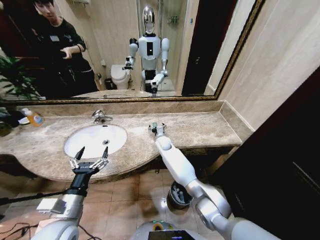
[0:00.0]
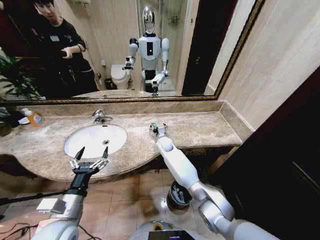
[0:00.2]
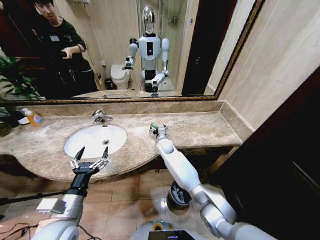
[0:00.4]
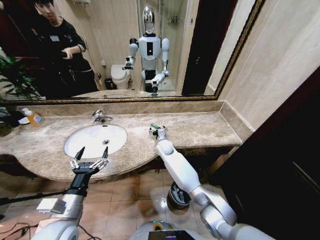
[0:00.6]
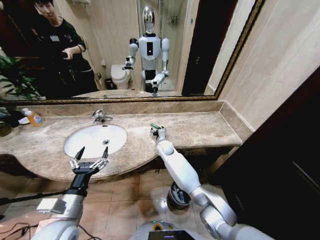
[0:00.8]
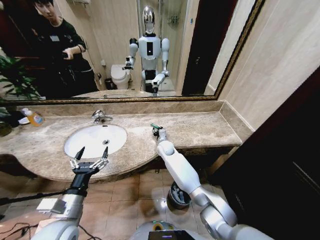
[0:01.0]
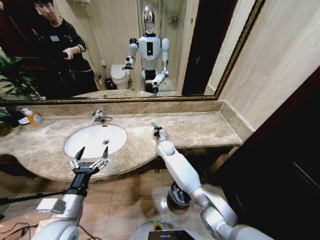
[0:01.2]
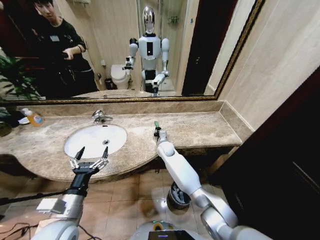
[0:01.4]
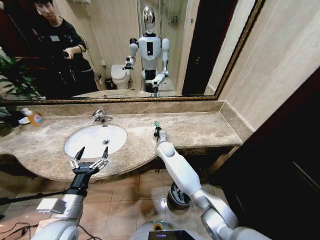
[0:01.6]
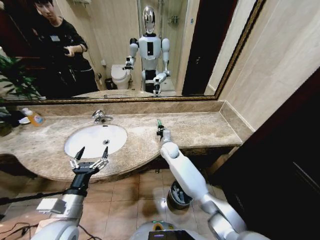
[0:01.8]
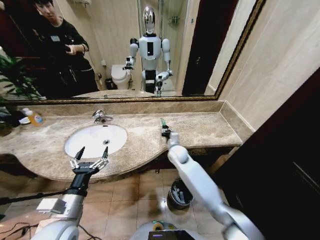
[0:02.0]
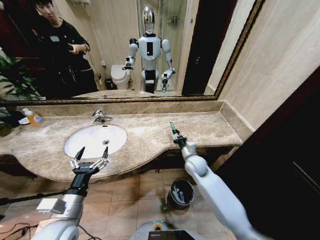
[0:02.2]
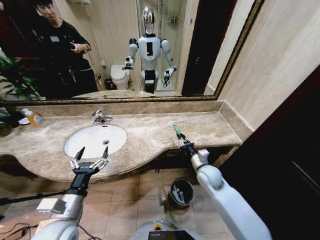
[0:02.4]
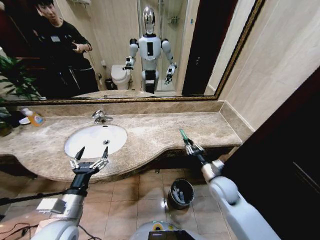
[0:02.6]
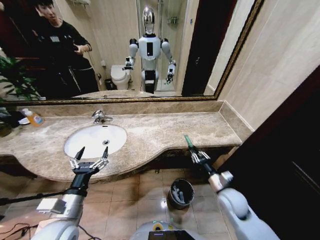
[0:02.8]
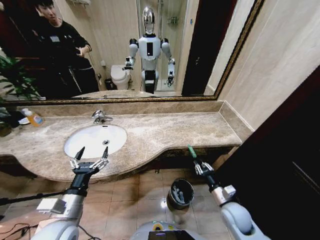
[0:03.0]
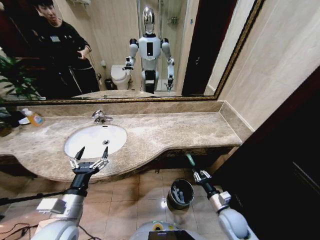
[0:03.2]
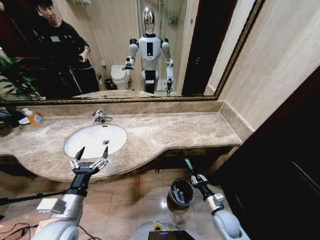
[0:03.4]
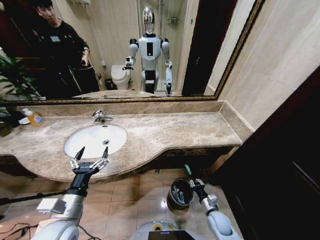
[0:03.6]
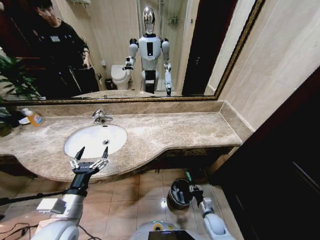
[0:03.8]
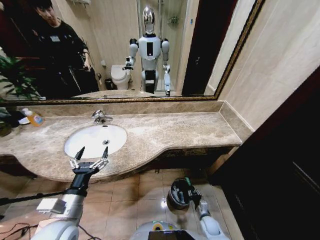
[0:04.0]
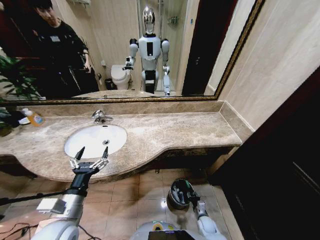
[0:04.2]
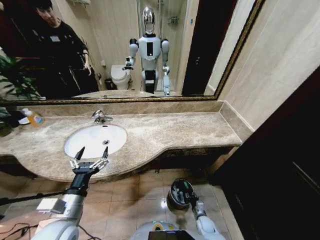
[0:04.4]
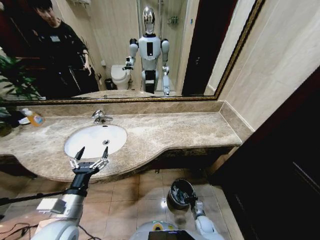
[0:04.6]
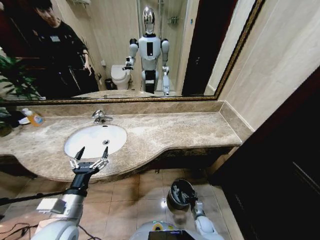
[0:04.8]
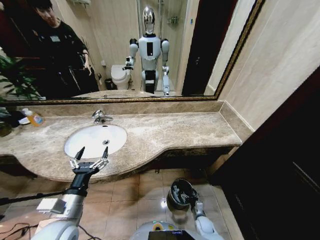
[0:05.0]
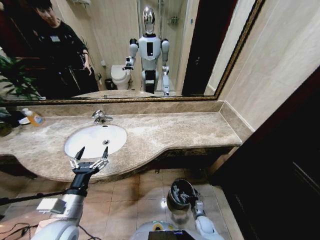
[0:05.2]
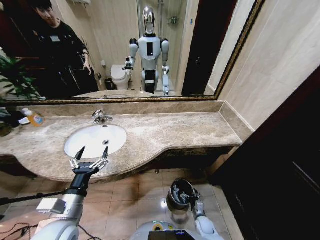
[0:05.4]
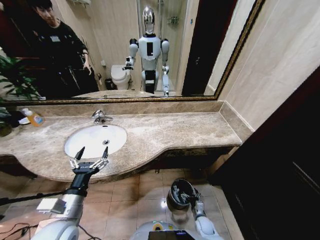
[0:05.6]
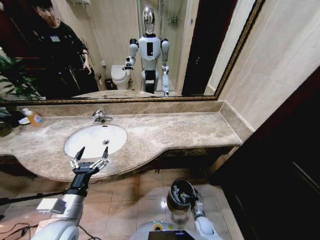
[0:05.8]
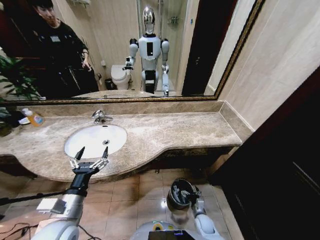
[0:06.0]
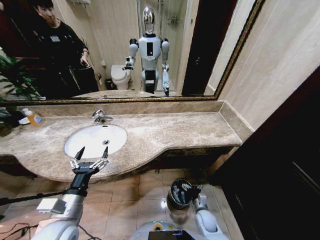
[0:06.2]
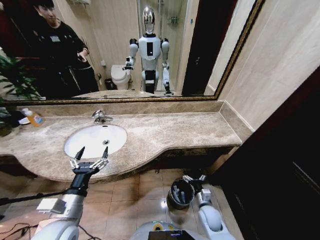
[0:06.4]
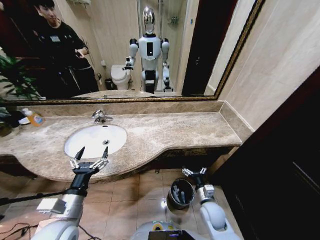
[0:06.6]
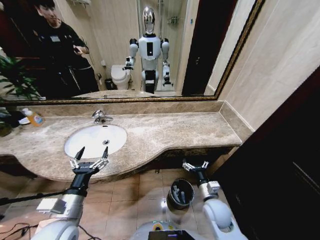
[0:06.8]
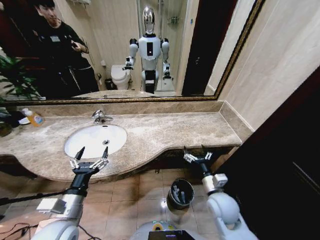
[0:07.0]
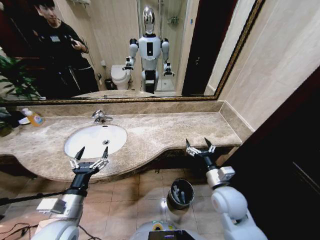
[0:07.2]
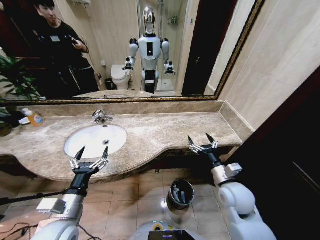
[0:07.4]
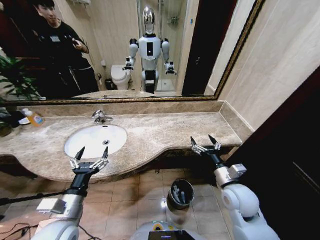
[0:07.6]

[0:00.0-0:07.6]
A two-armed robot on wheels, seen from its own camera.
Task of the whole recording: Pick up the trash from the sink and place it in the trash bin.
0:00.0 to 0:01.6: The right gripper closes.
0:01.6 to 0:03.0: The right gripper moves backward and to the right, approximately 40 cm.
0:03.0 to 0:04.6: The right gripper heads downward, covering about 25 cm.
0:06.0 to 0:07.6: The right gripper goes approximately 35 cm upward.

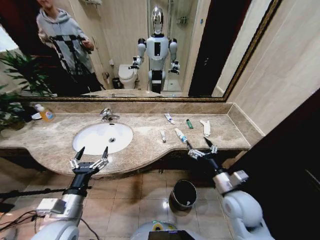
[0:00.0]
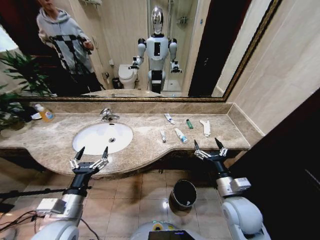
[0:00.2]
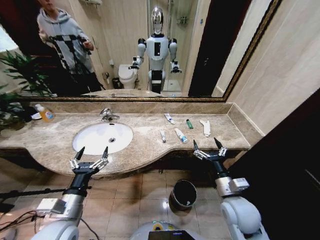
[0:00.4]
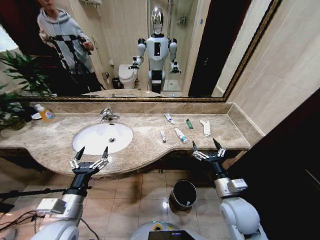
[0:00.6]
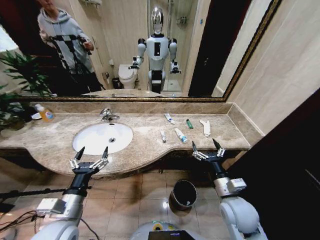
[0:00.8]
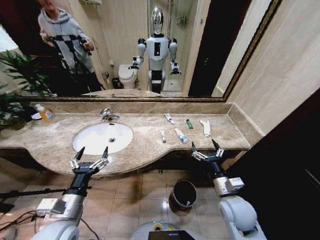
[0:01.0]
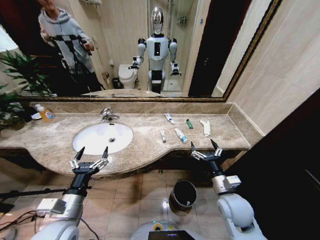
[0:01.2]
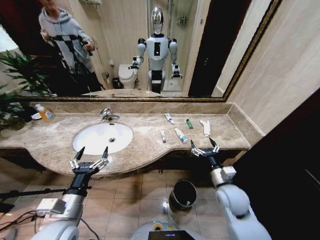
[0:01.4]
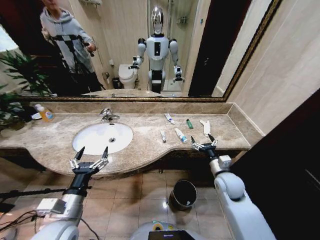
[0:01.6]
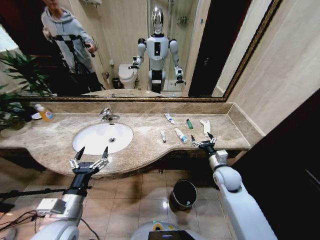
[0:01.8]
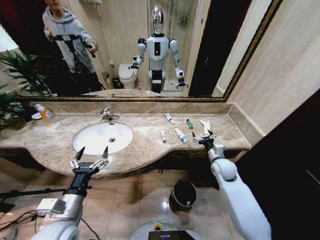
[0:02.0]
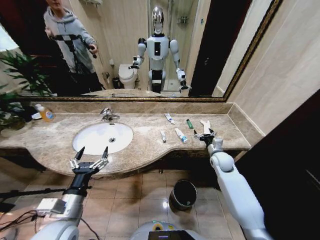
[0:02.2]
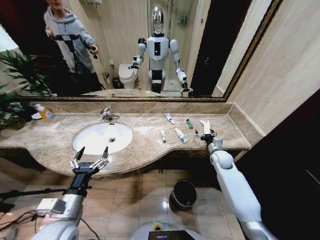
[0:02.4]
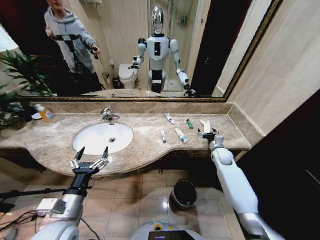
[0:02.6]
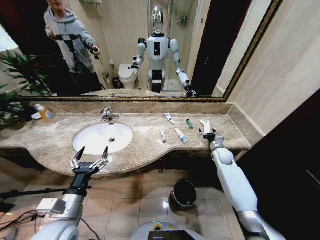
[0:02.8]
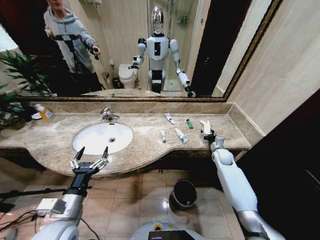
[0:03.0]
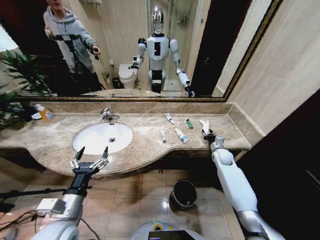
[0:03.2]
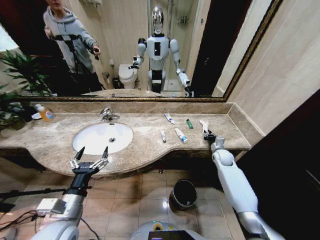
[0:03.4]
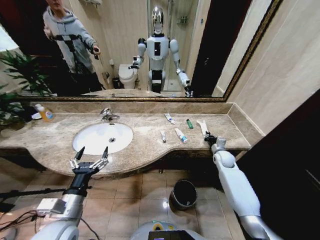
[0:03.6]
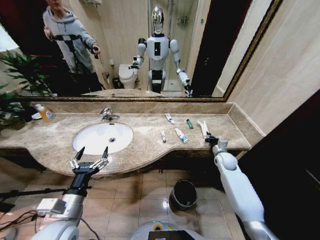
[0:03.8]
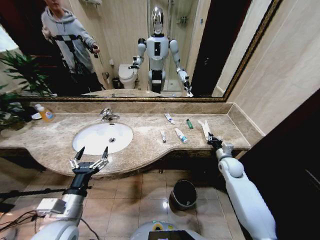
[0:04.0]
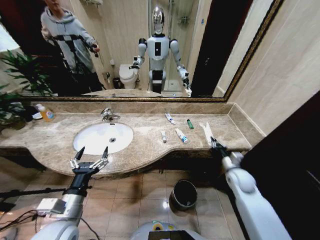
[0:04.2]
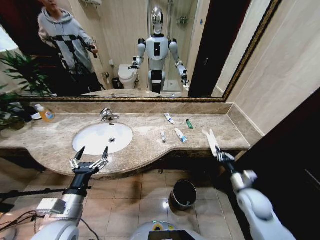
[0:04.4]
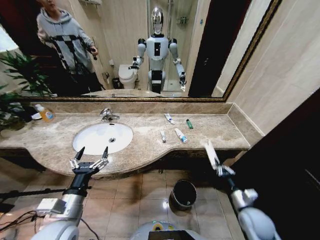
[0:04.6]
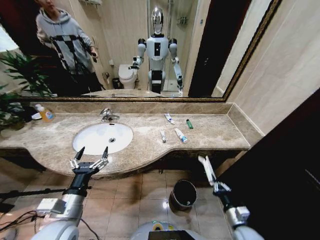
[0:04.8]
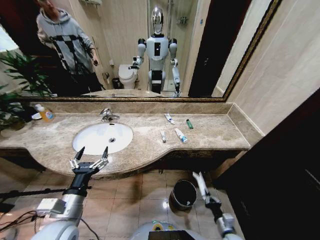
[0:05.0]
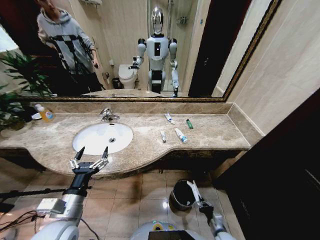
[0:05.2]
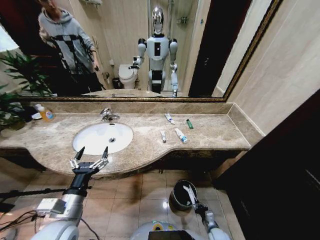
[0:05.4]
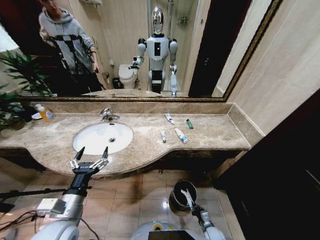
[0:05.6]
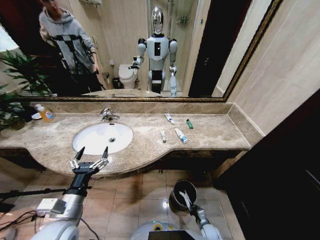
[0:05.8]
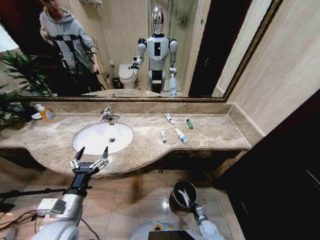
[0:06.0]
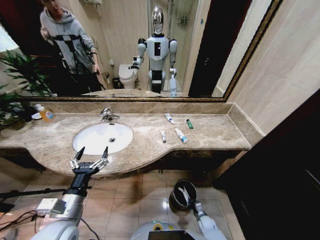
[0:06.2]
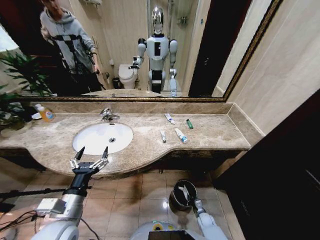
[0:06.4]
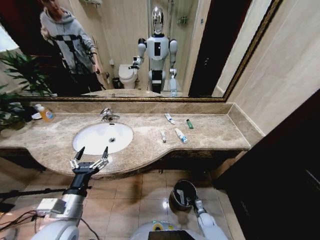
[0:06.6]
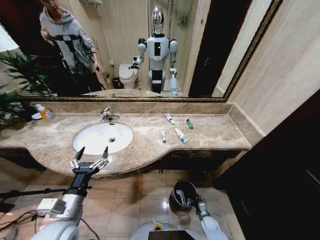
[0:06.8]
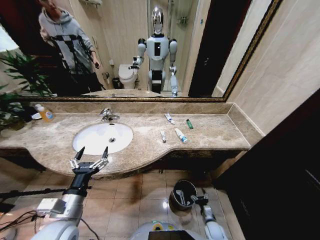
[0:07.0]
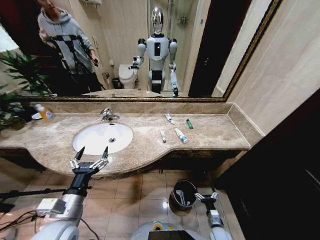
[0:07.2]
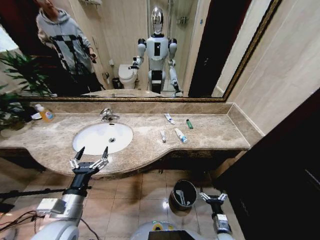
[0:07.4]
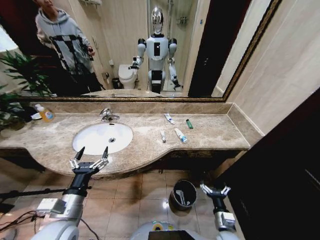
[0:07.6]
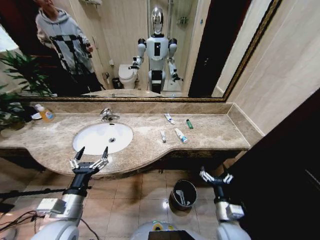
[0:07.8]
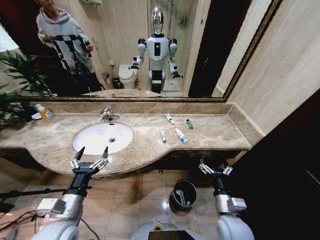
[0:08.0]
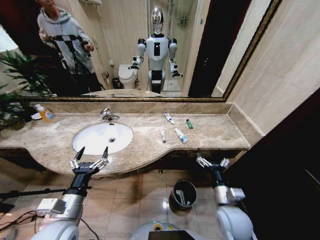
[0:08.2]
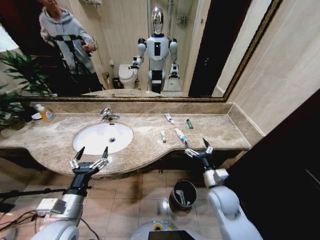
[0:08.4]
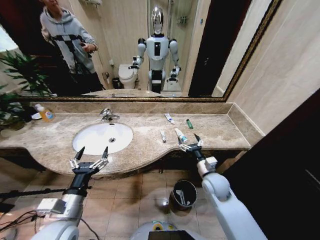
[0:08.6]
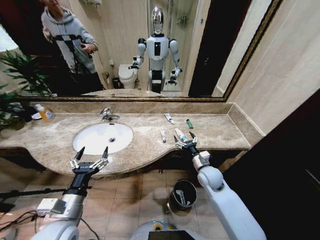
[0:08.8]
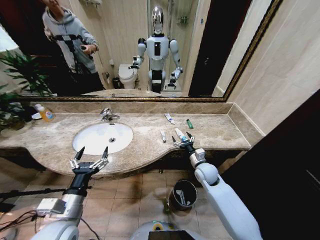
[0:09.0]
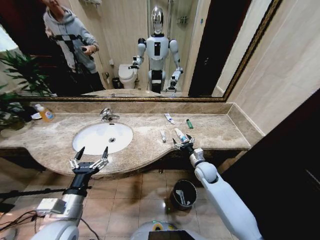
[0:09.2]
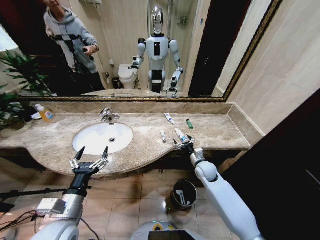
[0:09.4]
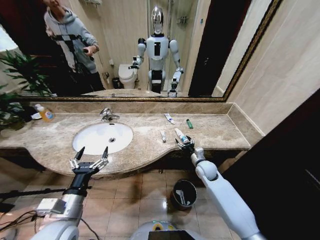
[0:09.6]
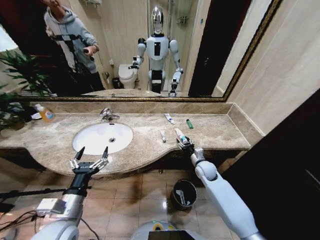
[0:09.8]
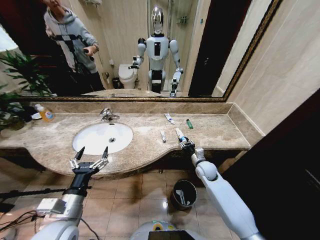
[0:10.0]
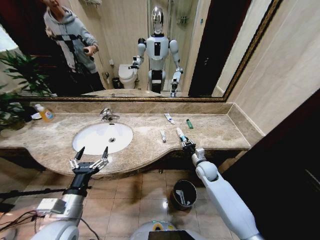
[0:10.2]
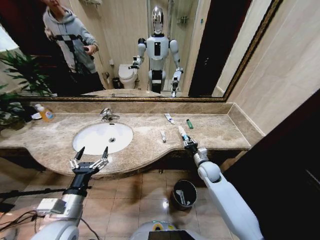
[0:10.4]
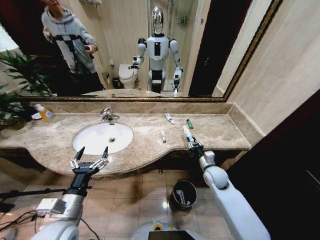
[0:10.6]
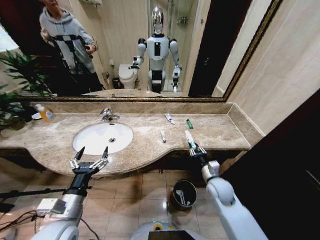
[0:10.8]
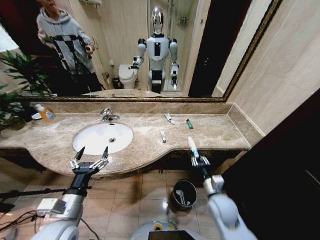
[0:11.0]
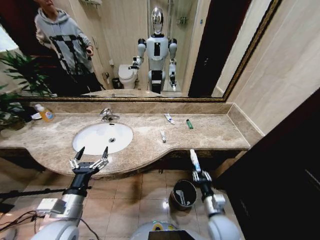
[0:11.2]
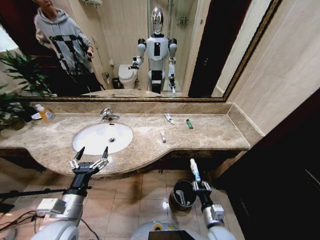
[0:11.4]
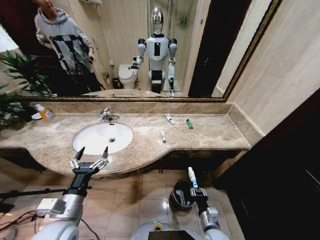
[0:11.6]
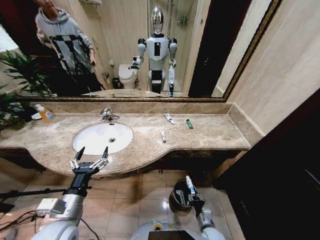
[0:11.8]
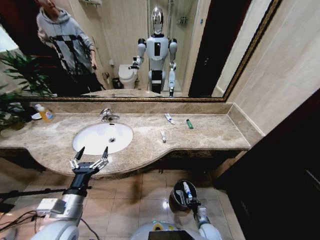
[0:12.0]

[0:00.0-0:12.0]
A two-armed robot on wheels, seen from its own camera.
Task of the whole recording: Pick up the trash from the sink and place it in the trash bin.
0:01.6 to 0:03.0: The right gripper is displaced forward and to the right by approximately 20 cm.
0:03.0 to 0:04.4: The right gripper goes roughly 25 cm backward, and closes its fingers.
0:04.4 to 0:06.0: The right gripper moves downward, roughly 35 cm.
0:06.0 to 0:07.6: The right gripper shifts about 20 cm upward, and opens its fingers.
0:07.6 to 0:09.0: The right gripper is displaced forward and upward by about 25 cm.
0:09.0 to 0:10.4: The right gripper closes up.
0:10.4 to 0:12.0: The right gripper heads backward and downward, covering about 30 cm.

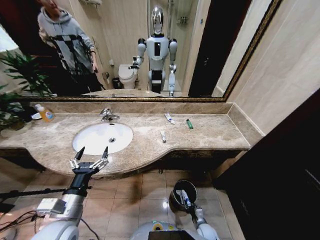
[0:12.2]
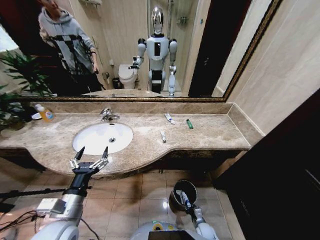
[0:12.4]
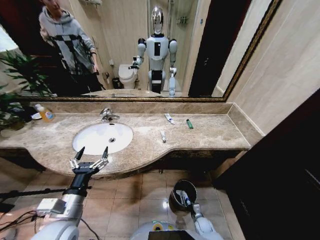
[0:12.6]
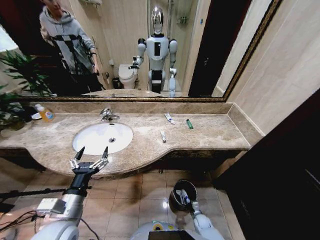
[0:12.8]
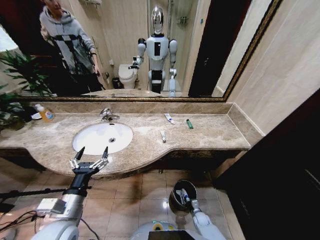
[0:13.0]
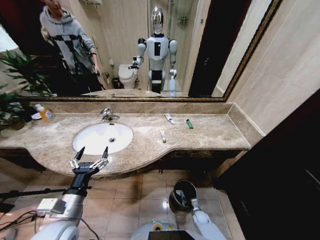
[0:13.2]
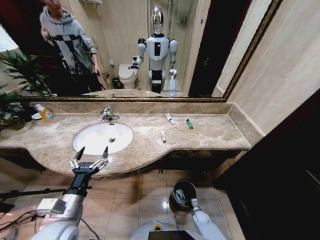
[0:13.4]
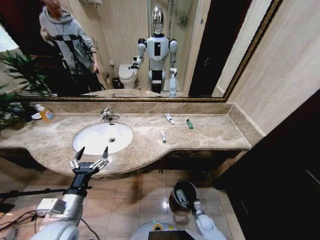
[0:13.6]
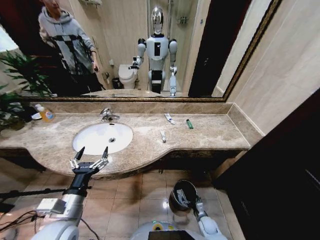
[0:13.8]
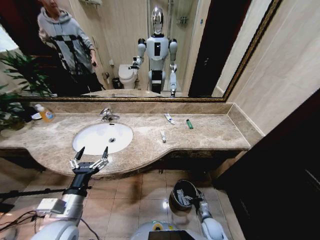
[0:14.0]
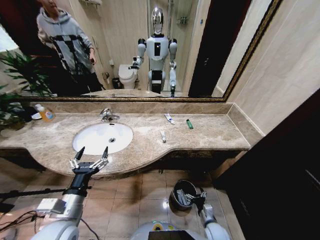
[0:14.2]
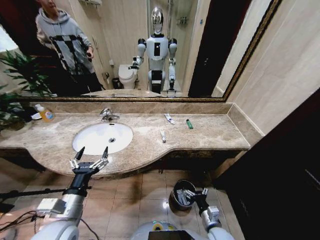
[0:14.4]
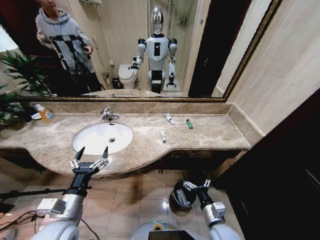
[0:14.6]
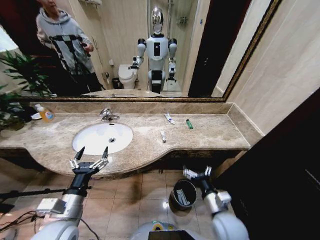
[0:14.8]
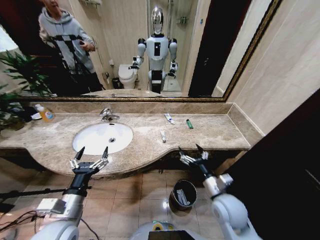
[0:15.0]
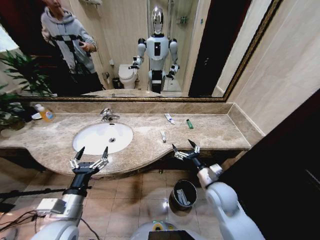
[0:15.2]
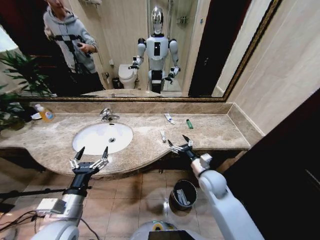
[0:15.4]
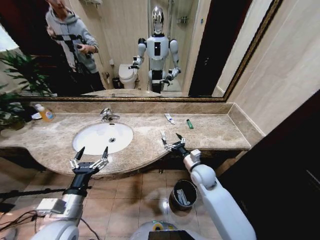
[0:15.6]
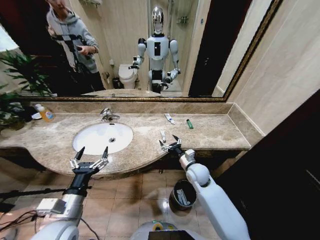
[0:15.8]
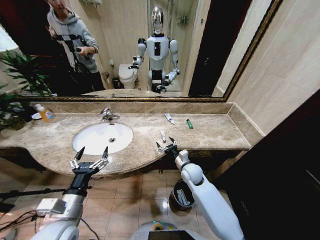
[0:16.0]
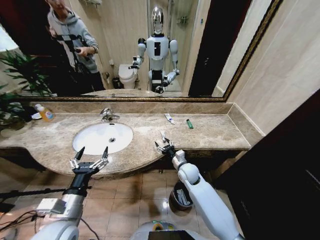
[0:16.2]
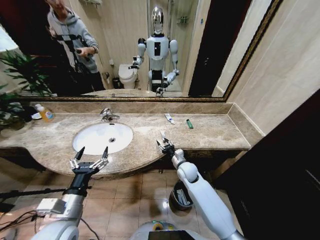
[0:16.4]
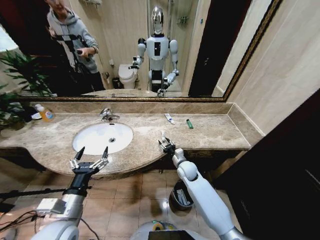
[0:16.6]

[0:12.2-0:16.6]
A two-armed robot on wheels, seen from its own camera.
Task of the whole recording: Pick up the trash from the sink and place it in the trash bin.
0:12.2 to 0:13.6: The right gripper moves some 5 cm, and opens up.
0:13.6 to 0:15.2: The right gripper heads upward, covering approximately 35 cm.
0:15.2 to 0:16.6: The right gripper travels forward, downward and to the left by approximately 20 cm, and closes.
